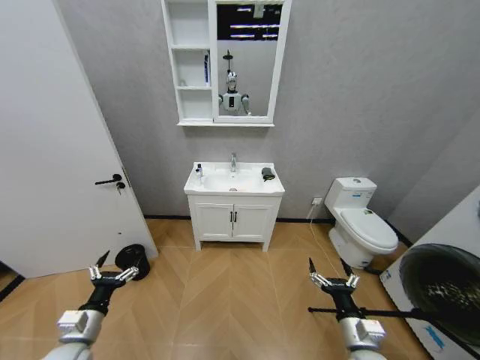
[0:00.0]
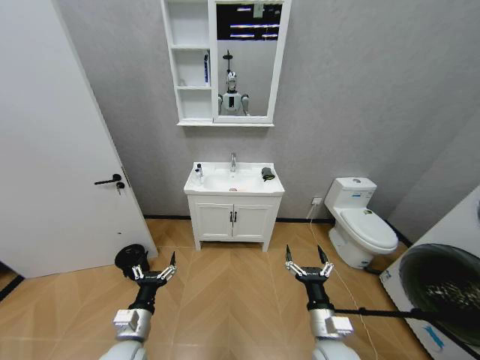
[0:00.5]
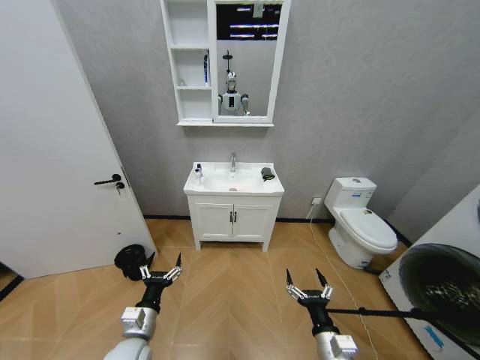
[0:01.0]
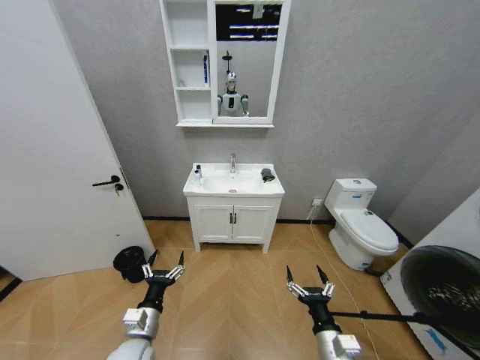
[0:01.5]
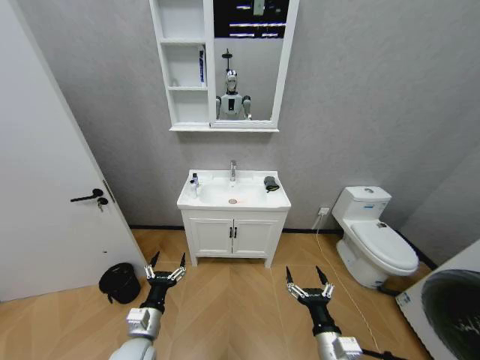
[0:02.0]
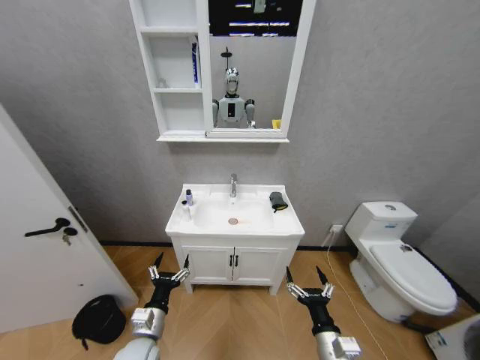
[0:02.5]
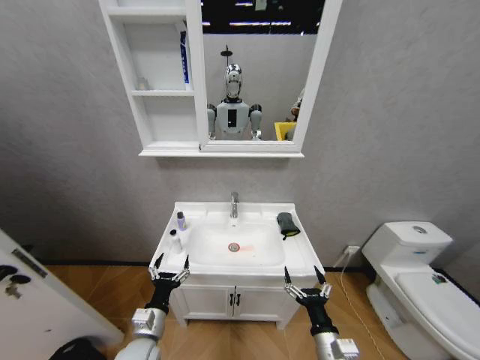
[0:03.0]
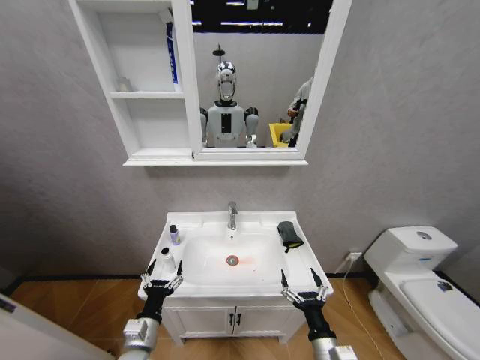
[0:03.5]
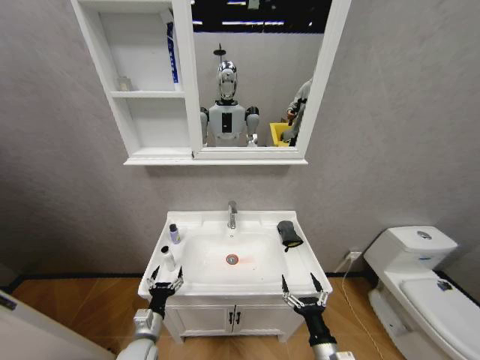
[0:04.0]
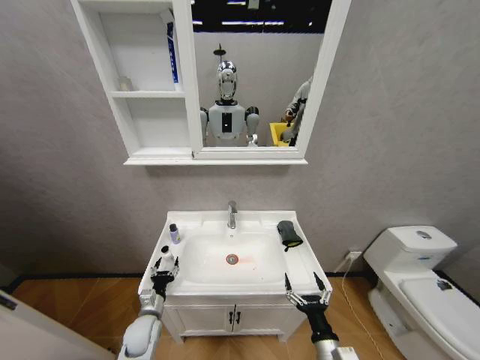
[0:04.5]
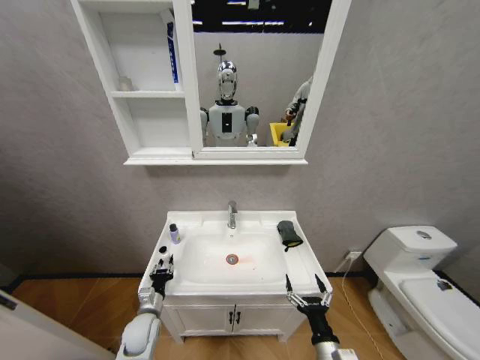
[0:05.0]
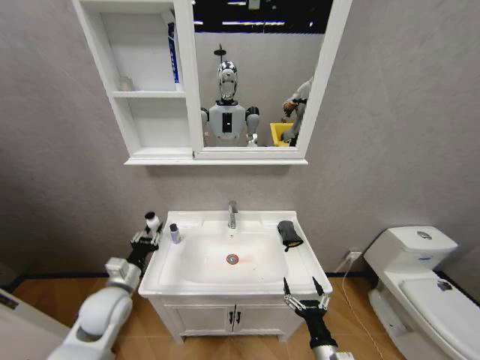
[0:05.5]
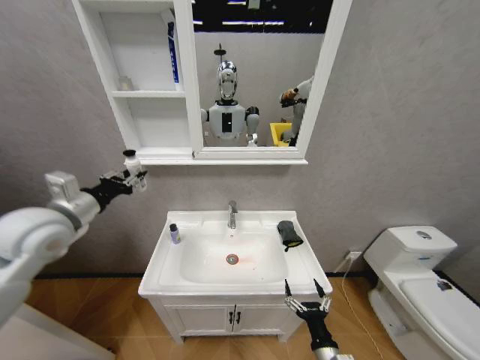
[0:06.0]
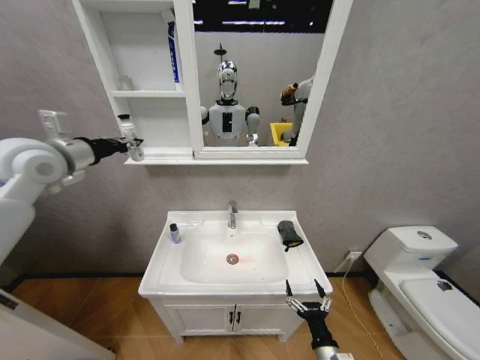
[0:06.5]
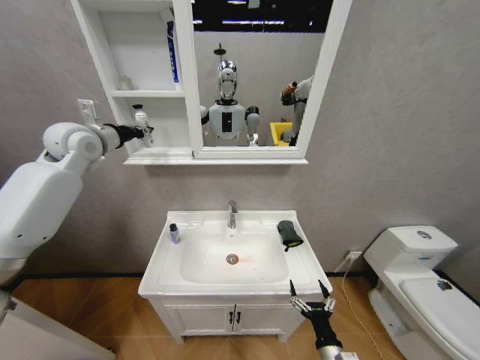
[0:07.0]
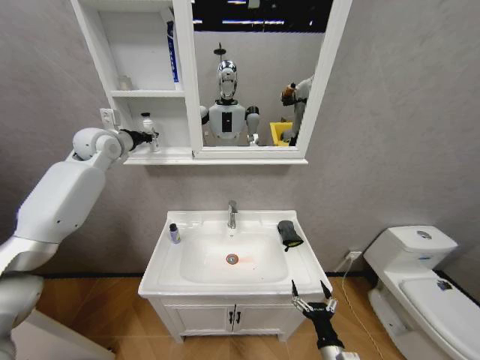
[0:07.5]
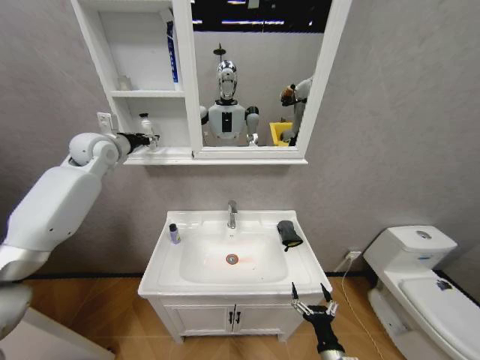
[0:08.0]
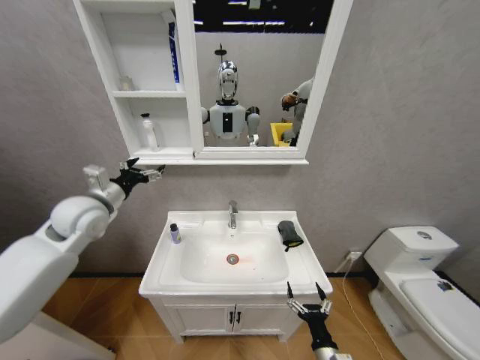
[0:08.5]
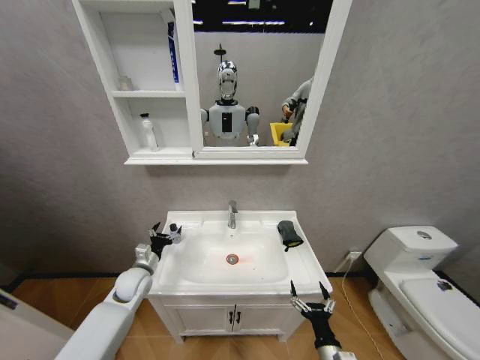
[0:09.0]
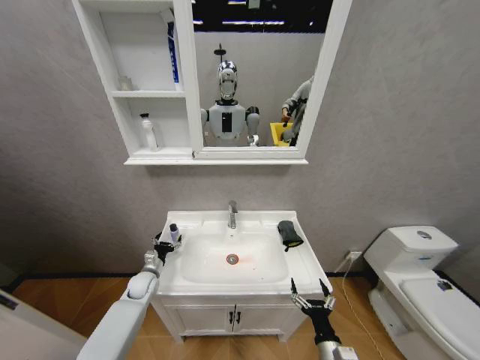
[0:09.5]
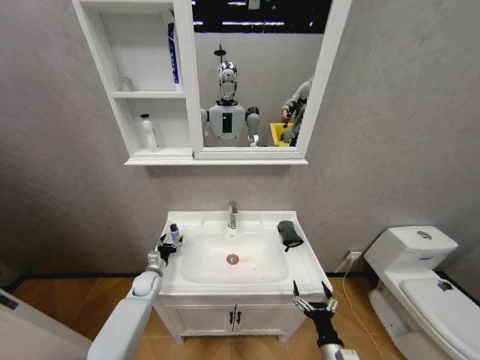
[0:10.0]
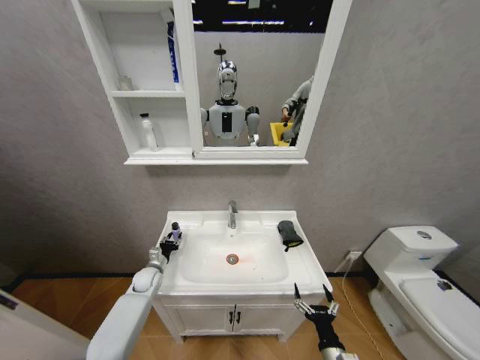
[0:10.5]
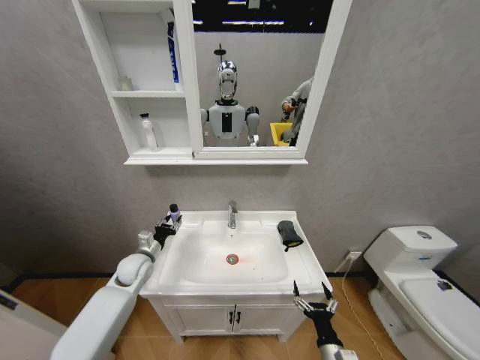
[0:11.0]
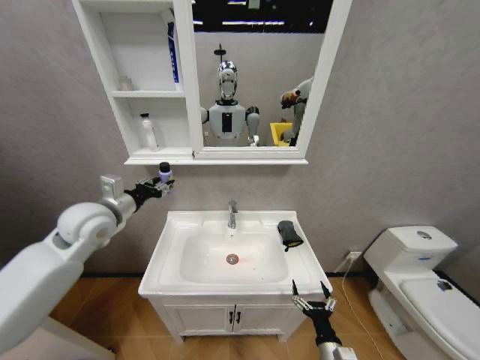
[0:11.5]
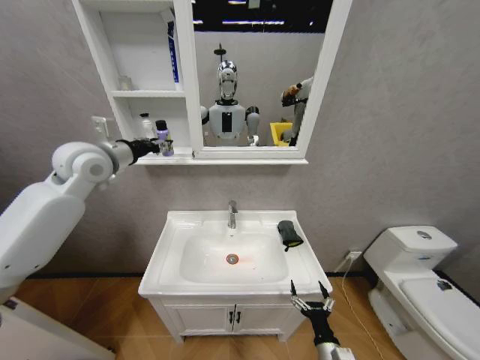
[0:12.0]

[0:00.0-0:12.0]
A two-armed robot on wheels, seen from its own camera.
Task of the whole recording: Move facial cleanser and shampoo from washbasin to cabinet, then wipe washbasin with towel.
0:02.0 to 0:04.0: The left gripper shifts some 5 cm downward.
0:04.0 to 0:06.0: The left gripper is displaced upward by approximately 40 cm, and closes its fingers.
0:06.0 to 0:08.0: The left gripper is displaced forward by some 20 cm, and opens up.
0:08.0 to 0:10.0: The left gripper goes some 50 cm downward, and opens its fingers.
0:10.0 to 0:12.0: The left gripper travels upward by roughly 50 cm, and closes its fingers.

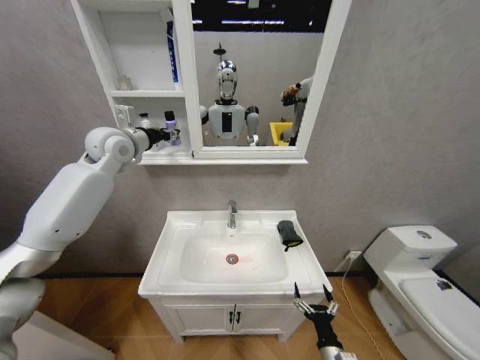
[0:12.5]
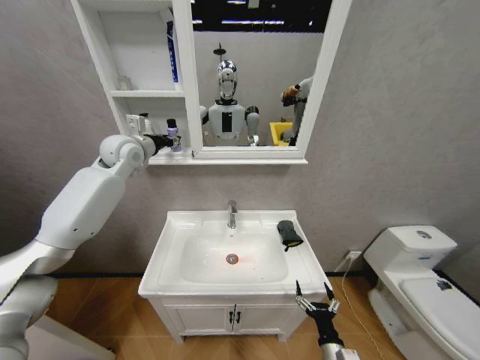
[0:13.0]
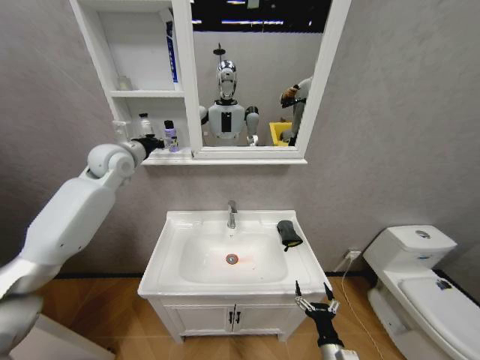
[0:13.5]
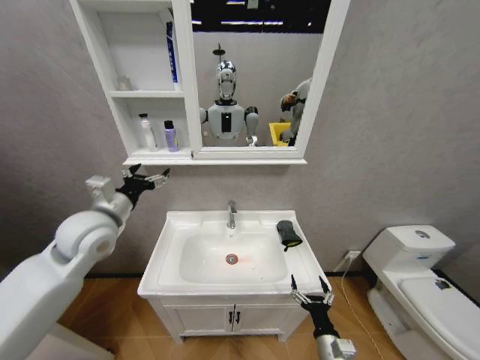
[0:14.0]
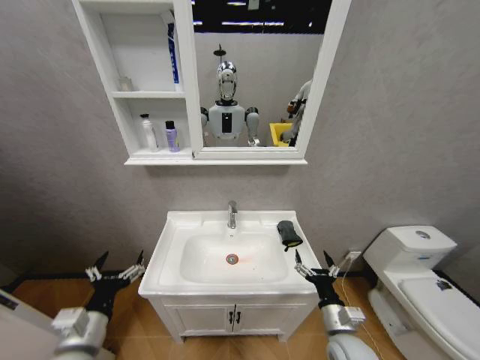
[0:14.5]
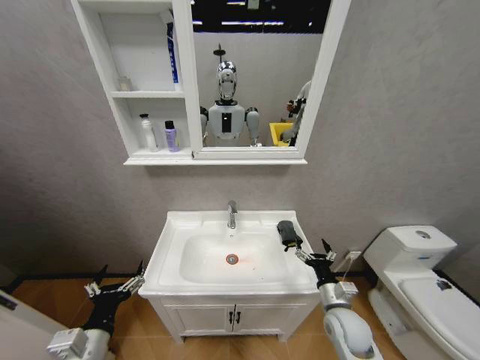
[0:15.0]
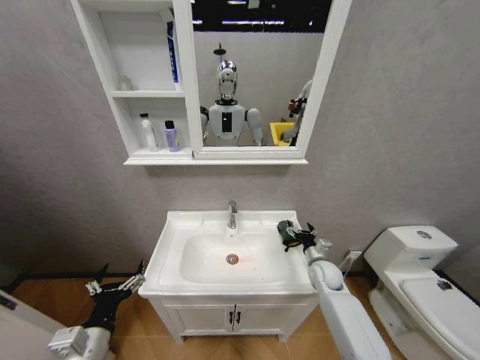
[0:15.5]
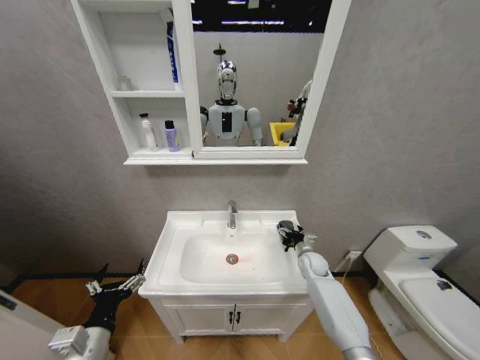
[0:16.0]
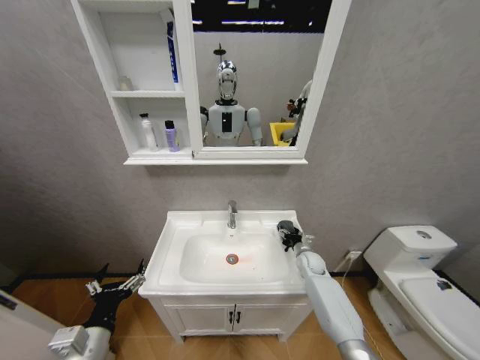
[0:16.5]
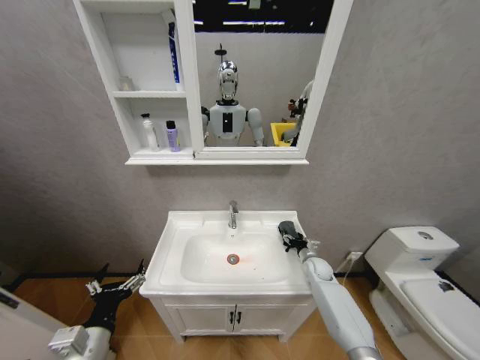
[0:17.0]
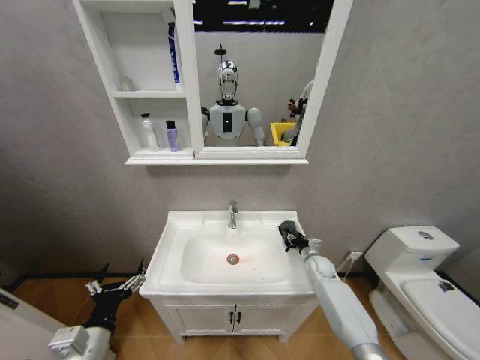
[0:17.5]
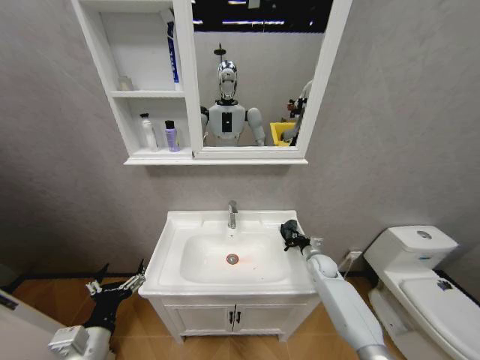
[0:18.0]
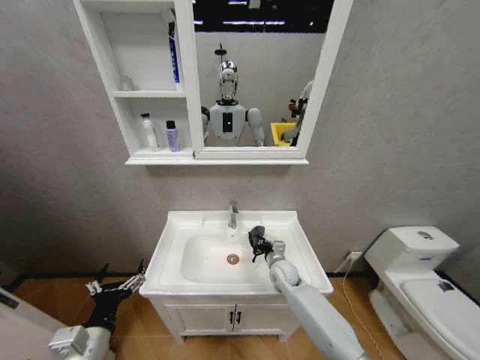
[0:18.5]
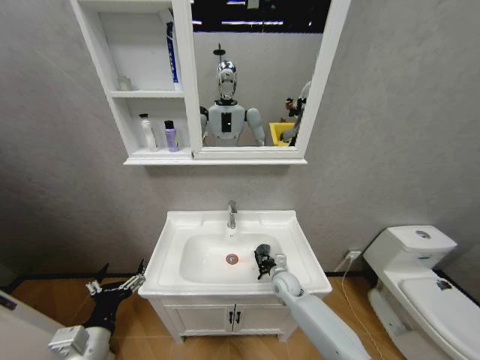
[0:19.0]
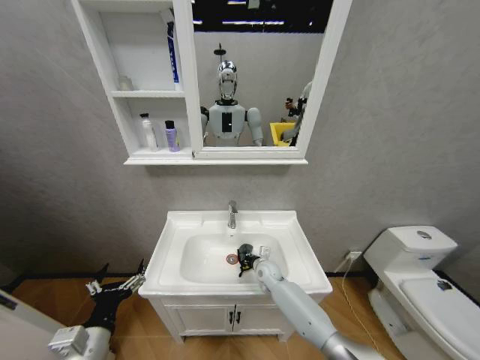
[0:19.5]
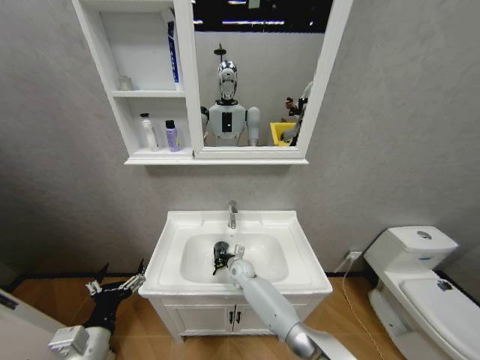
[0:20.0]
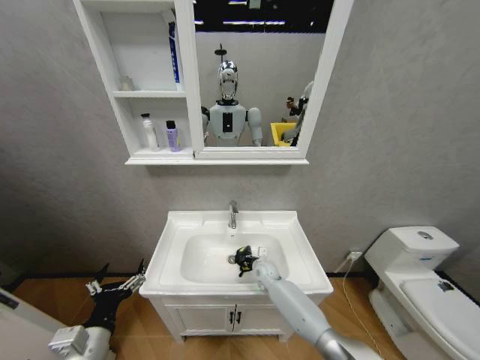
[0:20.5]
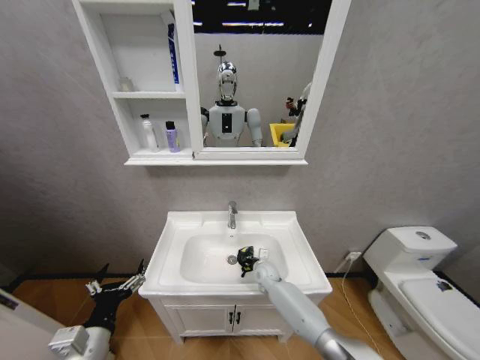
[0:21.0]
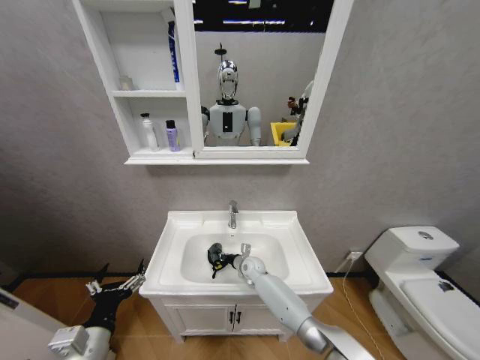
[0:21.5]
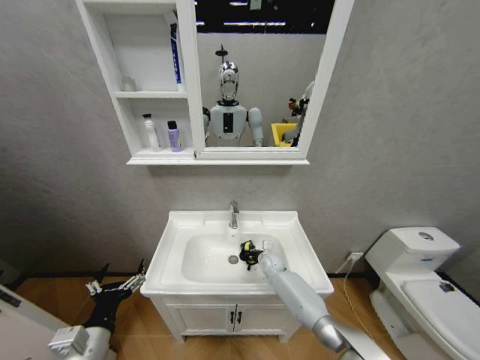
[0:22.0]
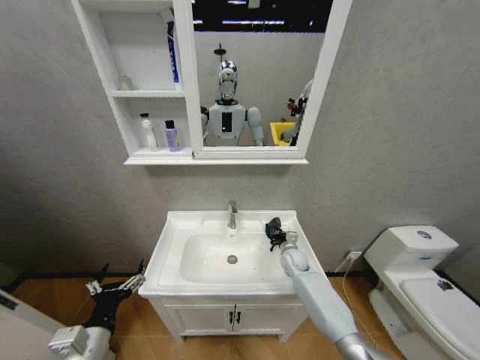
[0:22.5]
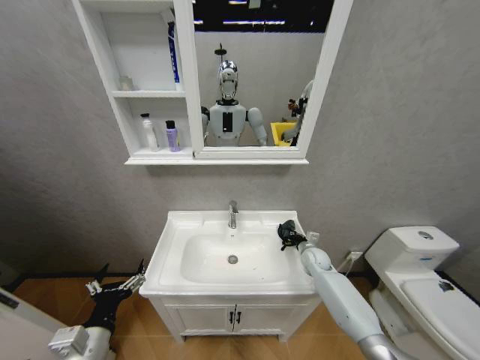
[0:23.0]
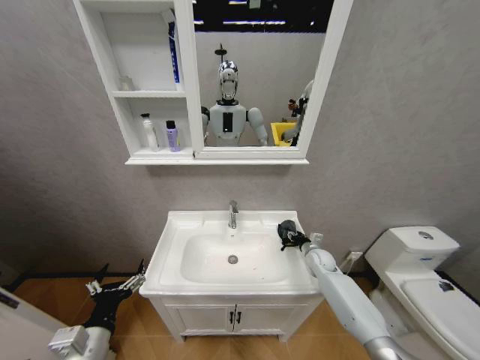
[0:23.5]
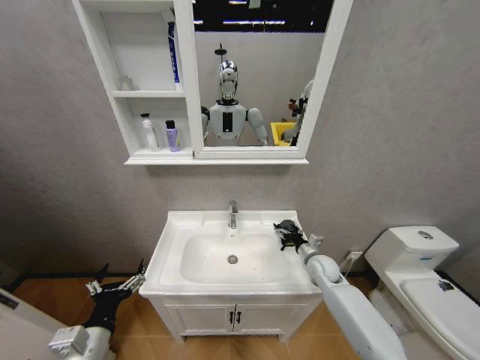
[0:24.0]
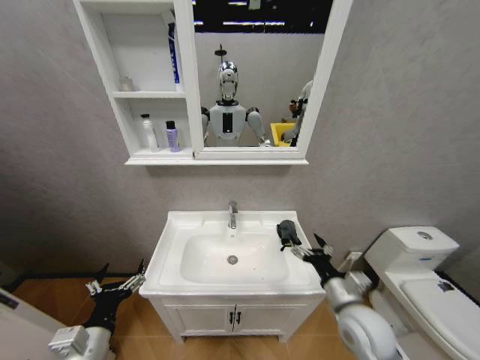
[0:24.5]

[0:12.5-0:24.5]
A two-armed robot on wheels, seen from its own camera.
Task of the whole recording: Move facial cleanser and shampoo from washbasin to cabinet, then wipe washbasin with towel.
0:12.5 to 0:14.5: The right gripper shifts approximately 15 cm upward and forward. Meanwhile the left gripper goes roughly 50 cm backward and downward, and opens.
0:14.5 to 0:16.5: The right gripper moves forward, some 25 cm.
0:16.5 to 0:18.5: The right gripper moves to the left and backward, some 15 cm, and closes.
0:18.5 to 0:20.5: The right gripper moves downward, approximately 5 cm, and moves about 15 cm to the left and comes back.
0:20.5 to 0:22.5: The right gripper goes approximately 10 cm to the right and upward.
0:22.5 to 0:24.5: The right gripper moves backward and upward, approximately 25 cm, and opens.

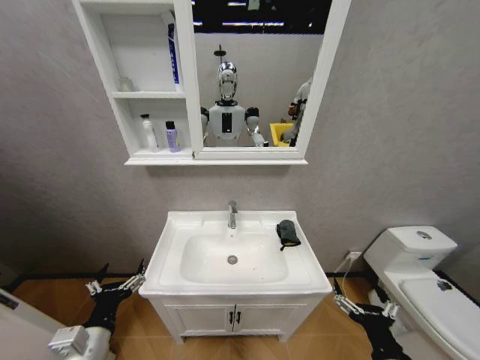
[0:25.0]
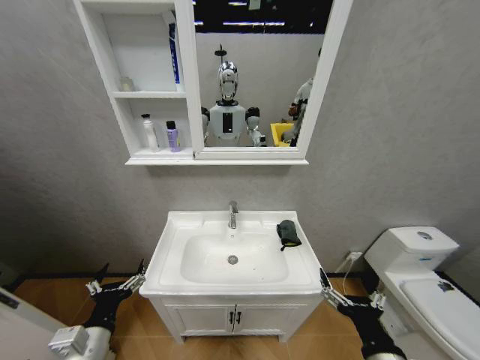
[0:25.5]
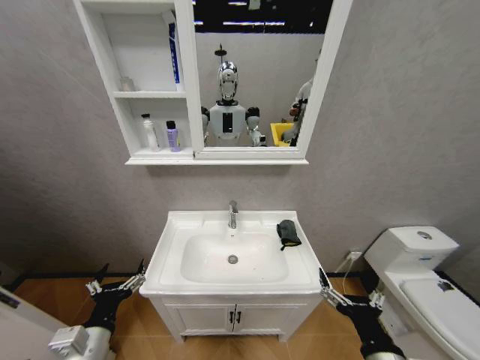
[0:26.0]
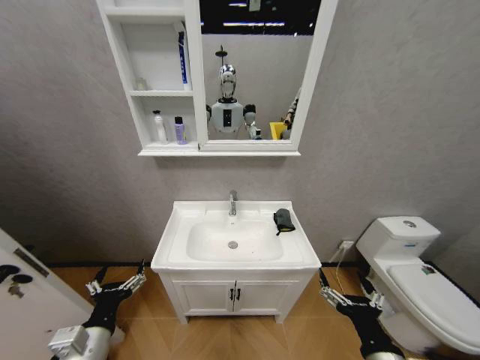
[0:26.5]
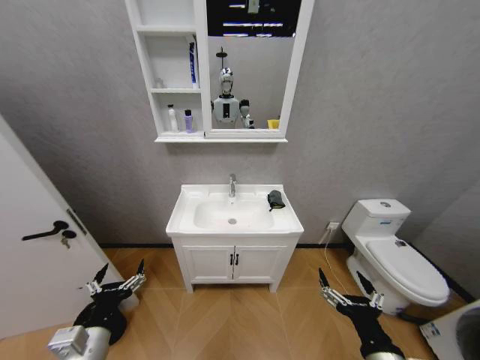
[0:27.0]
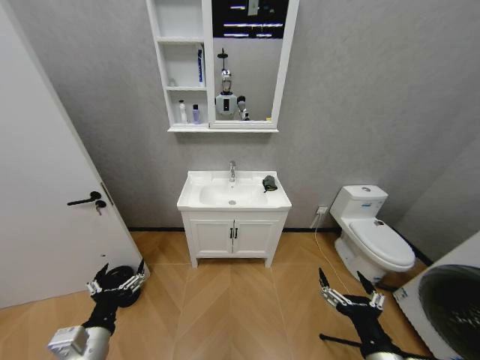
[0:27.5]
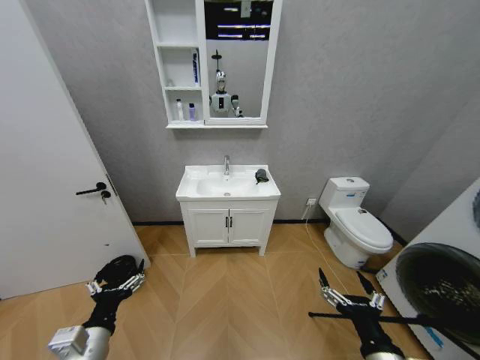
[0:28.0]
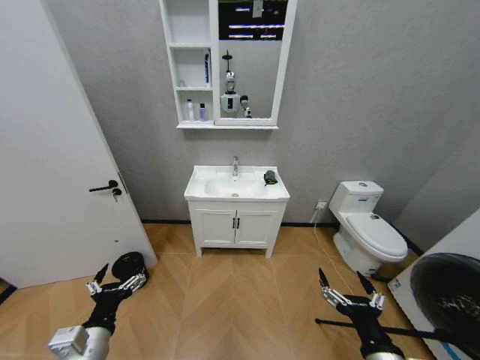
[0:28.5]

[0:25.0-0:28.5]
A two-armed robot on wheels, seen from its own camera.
Task of the whole recording: Move facial cleanser and shampoo from washbasin to cabinet, then wipe washbasin with towel.
0:25.0 to 0:27.0: The right gripper shifts by roughly 5 cm.
